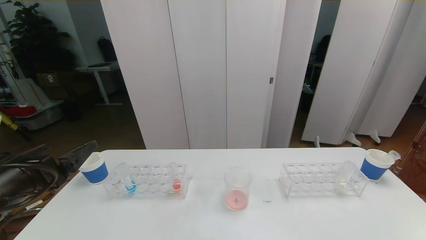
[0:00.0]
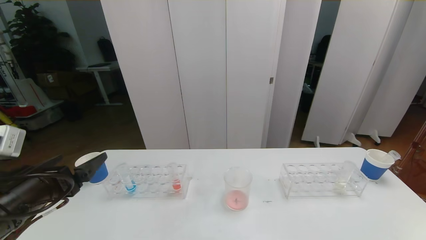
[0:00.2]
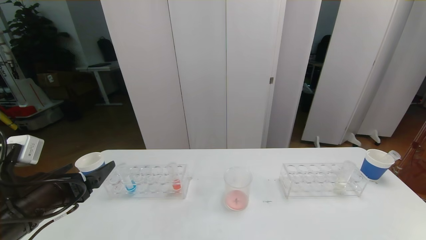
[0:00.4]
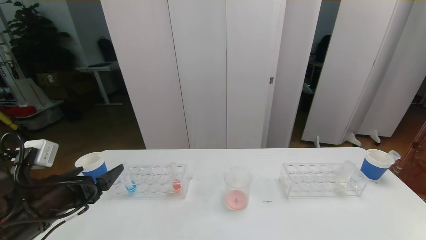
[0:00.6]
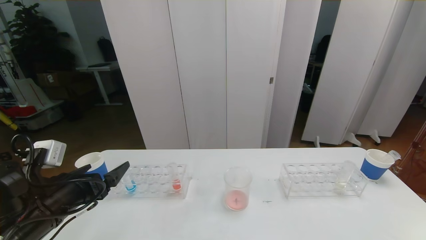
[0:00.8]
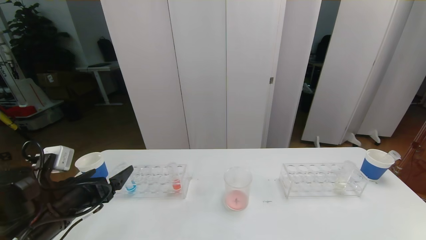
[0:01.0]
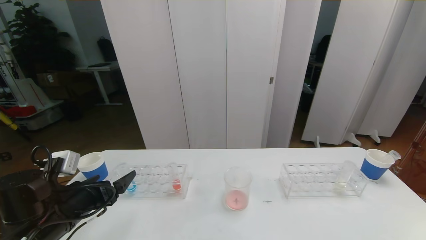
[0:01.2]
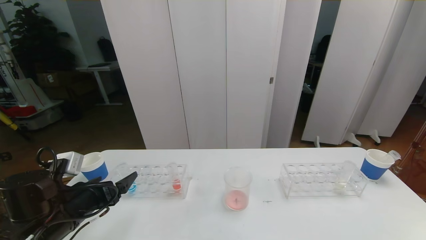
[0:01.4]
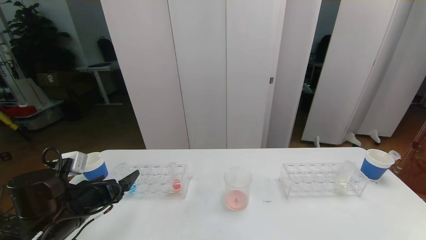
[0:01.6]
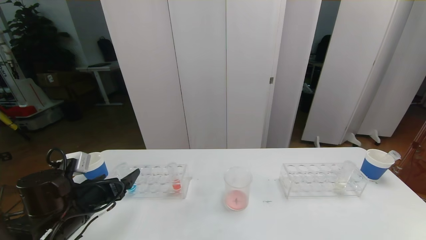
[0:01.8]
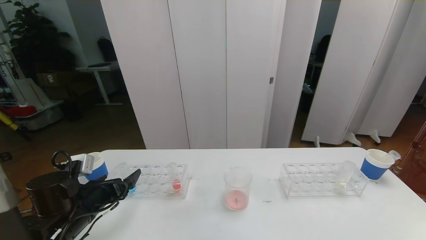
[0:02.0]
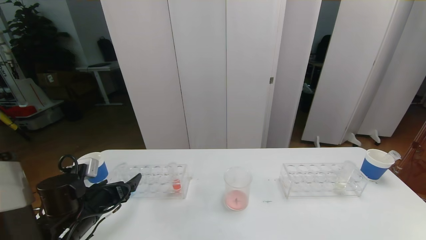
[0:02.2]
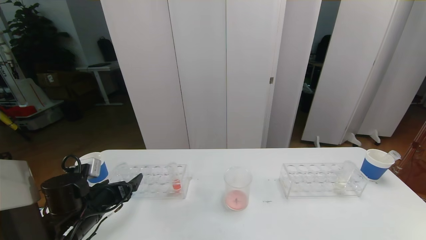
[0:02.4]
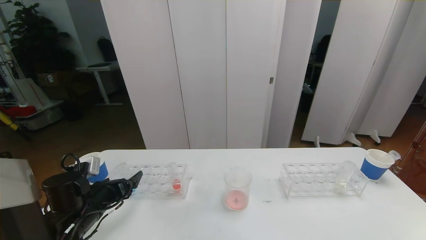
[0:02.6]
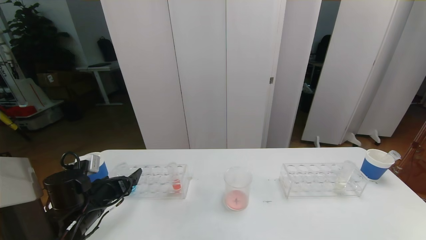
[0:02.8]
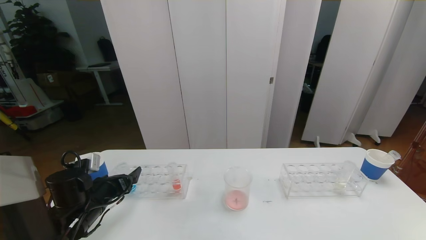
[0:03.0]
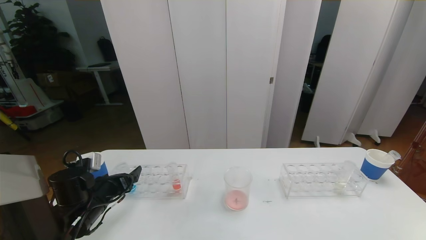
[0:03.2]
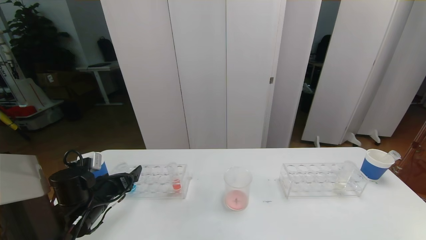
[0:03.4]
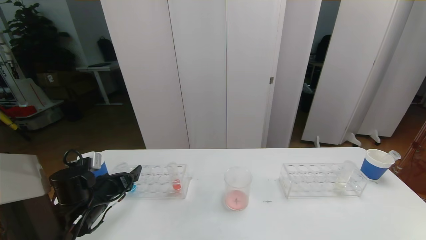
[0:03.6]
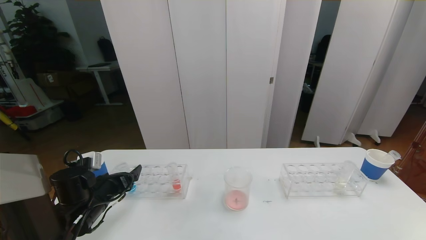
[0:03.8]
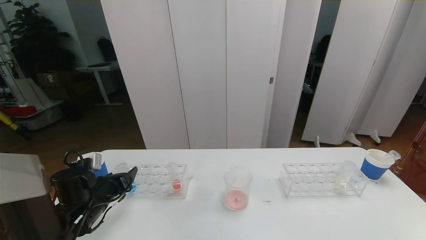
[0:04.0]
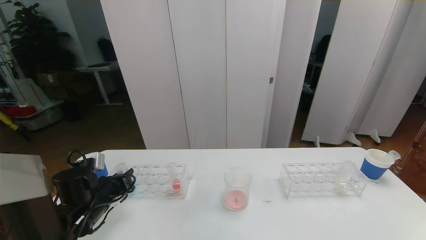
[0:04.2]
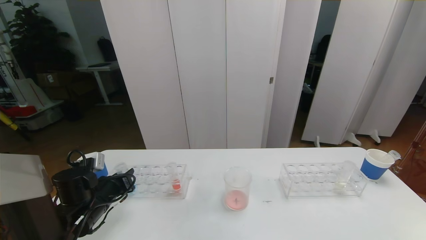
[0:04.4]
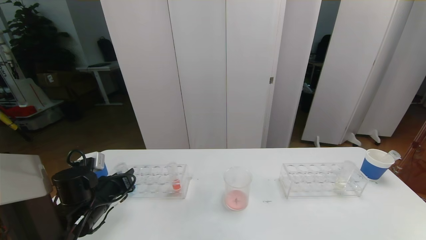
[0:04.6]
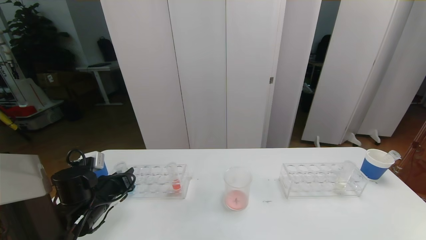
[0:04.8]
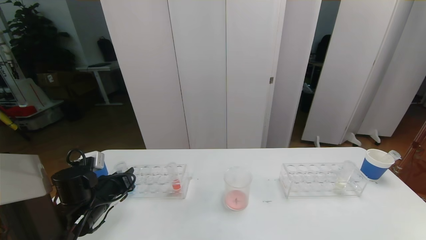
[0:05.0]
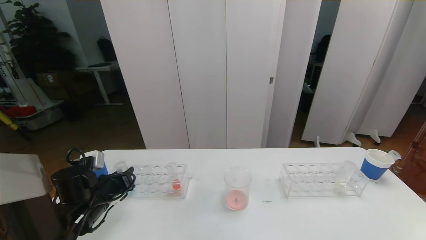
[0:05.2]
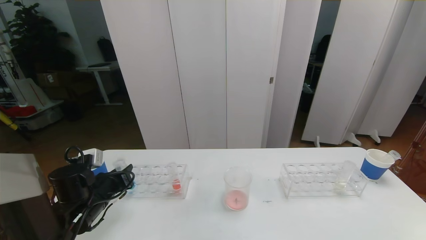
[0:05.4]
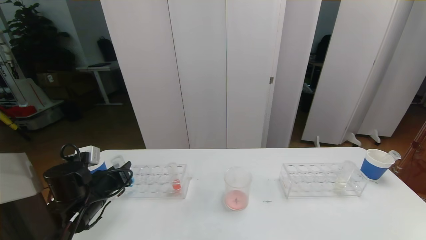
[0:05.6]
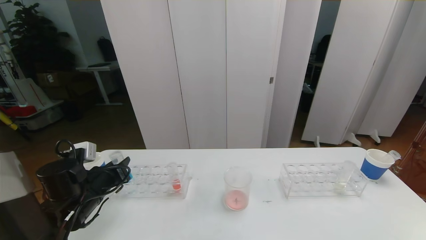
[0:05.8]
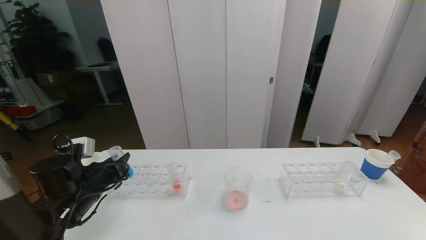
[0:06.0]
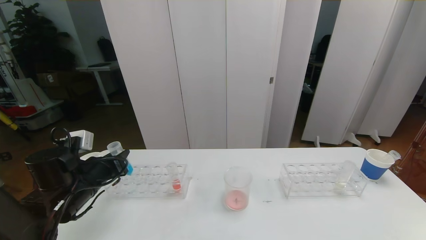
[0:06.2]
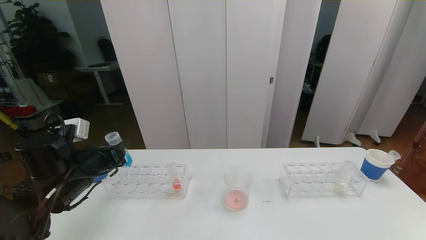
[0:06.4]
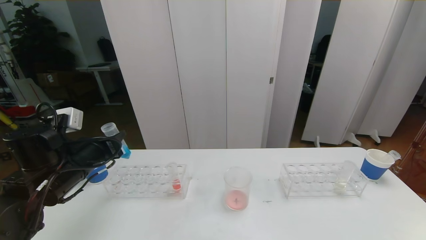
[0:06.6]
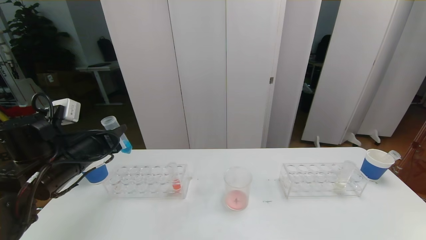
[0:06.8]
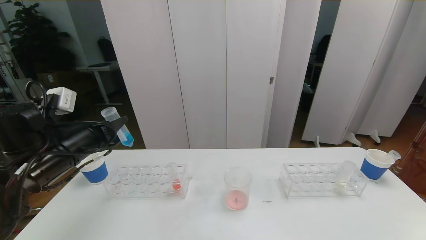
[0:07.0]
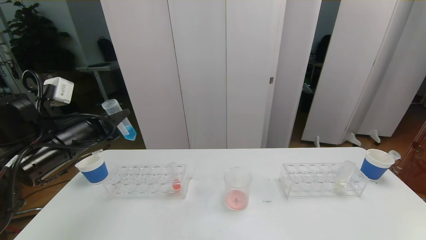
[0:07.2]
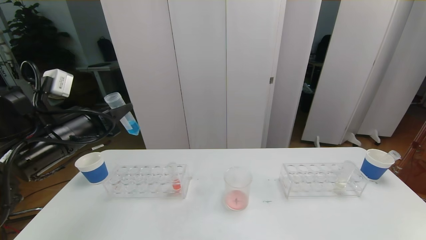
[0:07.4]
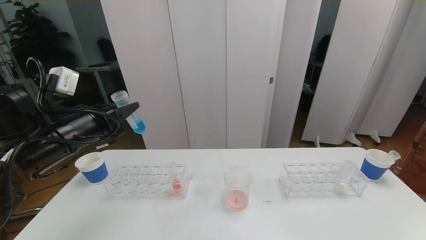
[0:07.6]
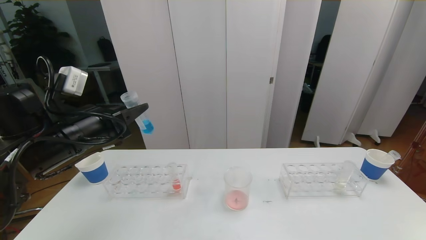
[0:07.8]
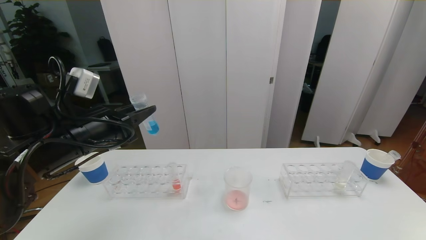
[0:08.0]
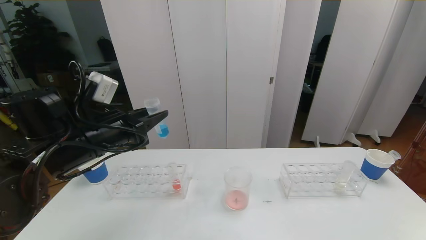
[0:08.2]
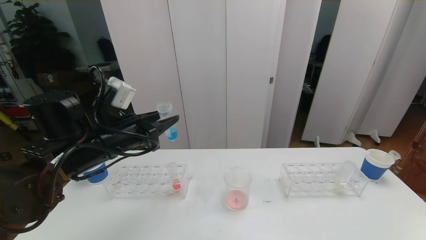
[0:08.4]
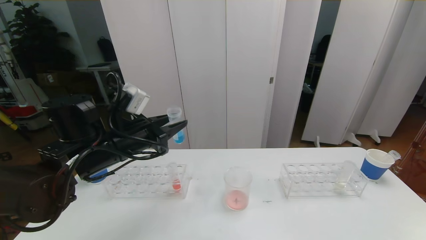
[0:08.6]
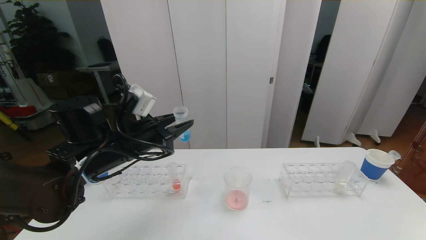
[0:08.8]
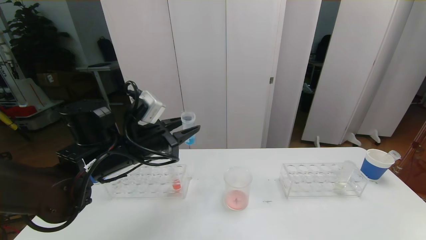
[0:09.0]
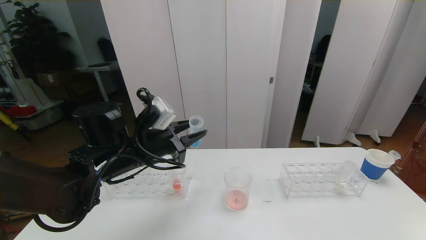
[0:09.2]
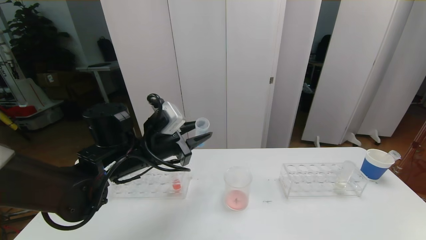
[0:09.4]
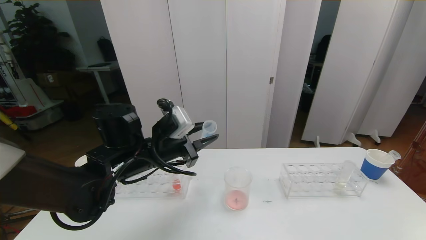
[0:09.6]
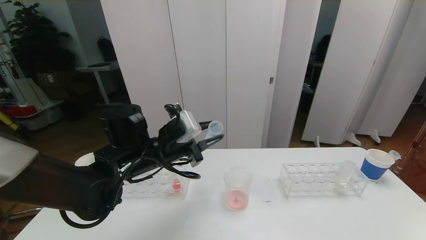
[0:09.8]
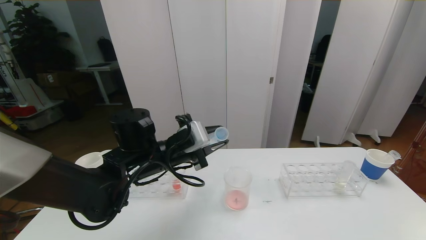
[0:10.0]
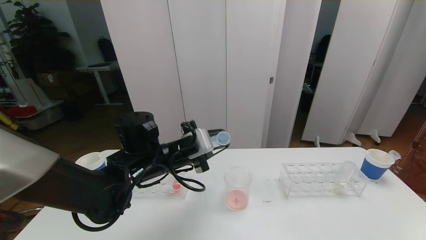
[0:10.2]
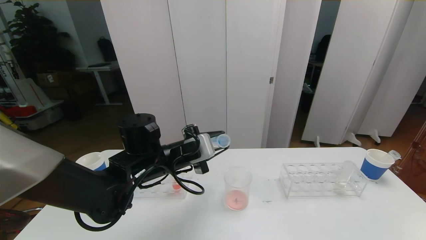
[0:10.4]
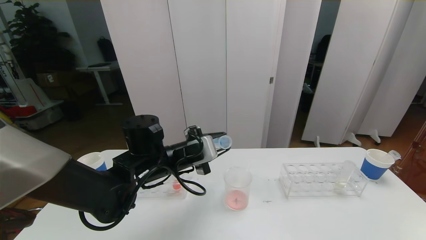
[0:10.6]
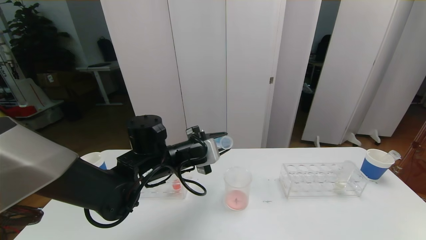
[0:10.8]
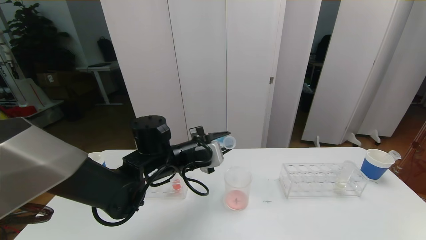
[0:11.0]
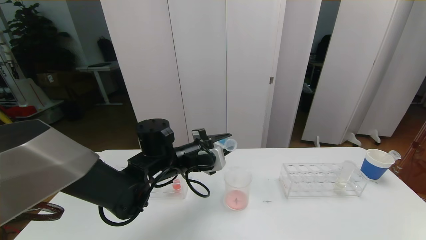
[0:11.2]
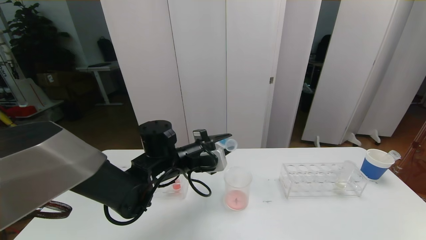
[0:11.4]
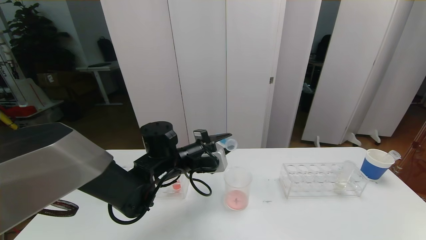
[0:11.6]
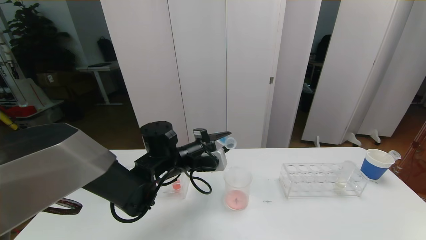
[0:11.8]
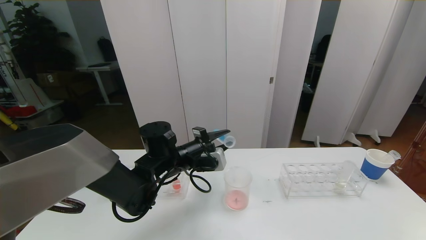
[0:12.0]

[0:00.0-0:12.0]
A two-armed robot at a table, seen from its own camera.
Task of the whole recording: pick up the test tube with red pigment the test tube with blue pigment and the test tube with white pigment by grippers and pour them into the beaker.
0:00.0 to 0:01.6: The left gripper heads downward and forward, covering about 15 cm.
0:01.6 to 0:03.0: The left gripper ends up roughly 5 cm from where it was.
0:03.0 to 0:04.4: The left gripper closes up.
0:04.4 to 0:06.0: The grippers stay close to where they were, moving slightly.
0:06.0 to 0:07.6: The left gripper shifts roughly 15 cm upward.
0:07.6 to 0:09.0: The left gripper goes roughly 10 cm to the right.
0:09.0 to 0:10.4: The left gripper heads to the right, covering approximately 5 cm.
0:10.4 to 0:12.0: The left gripper moves some 5 cm.

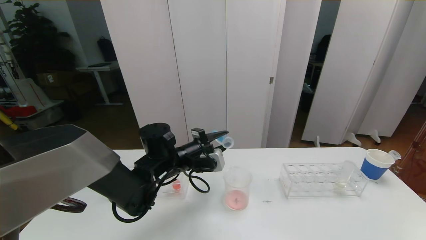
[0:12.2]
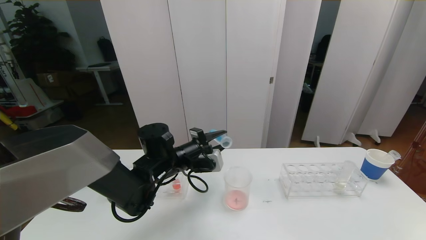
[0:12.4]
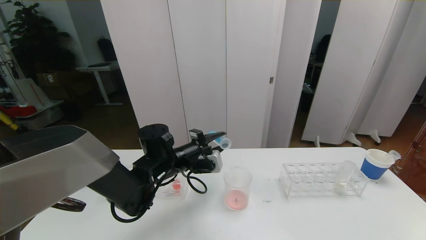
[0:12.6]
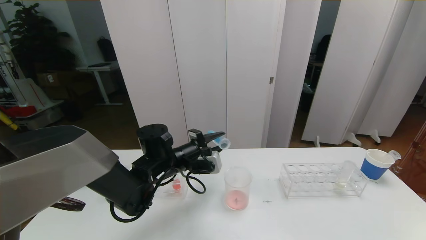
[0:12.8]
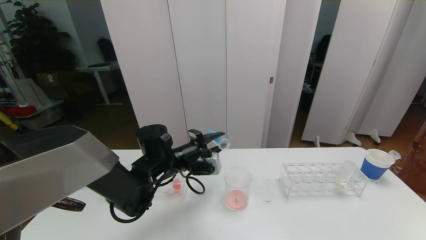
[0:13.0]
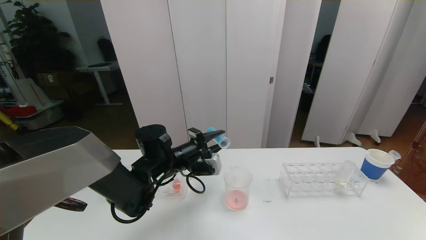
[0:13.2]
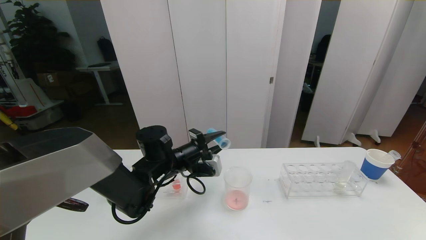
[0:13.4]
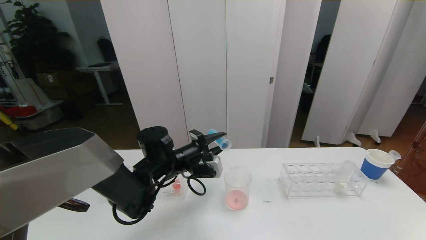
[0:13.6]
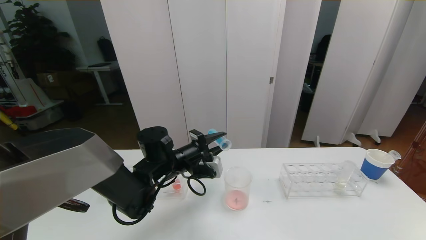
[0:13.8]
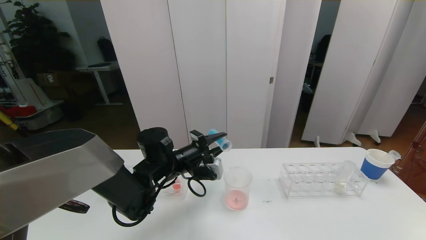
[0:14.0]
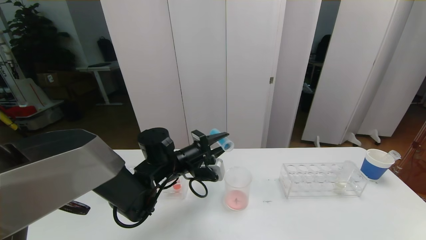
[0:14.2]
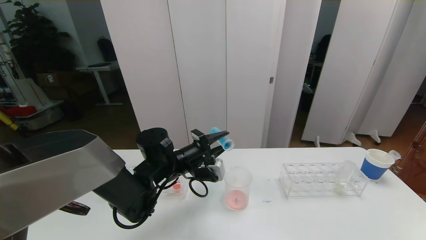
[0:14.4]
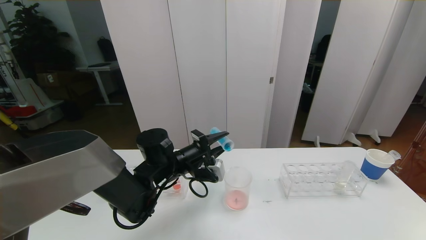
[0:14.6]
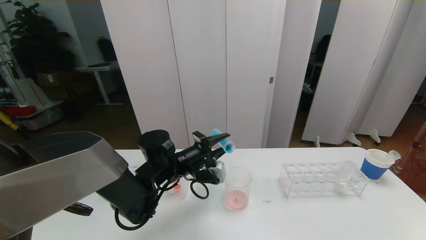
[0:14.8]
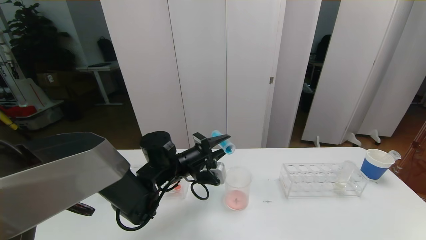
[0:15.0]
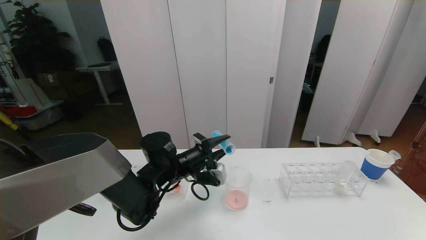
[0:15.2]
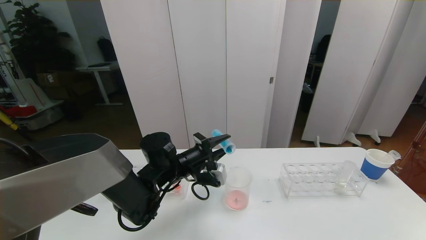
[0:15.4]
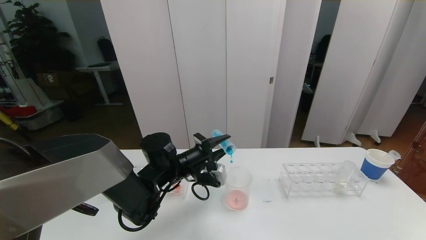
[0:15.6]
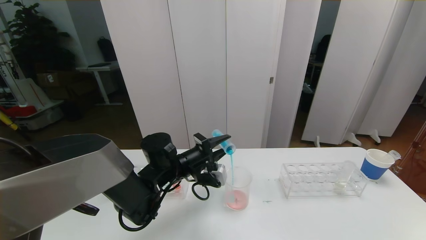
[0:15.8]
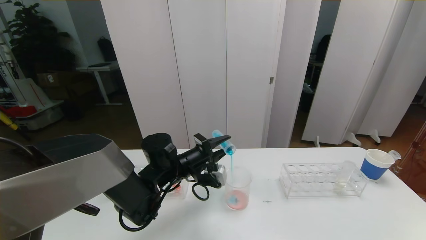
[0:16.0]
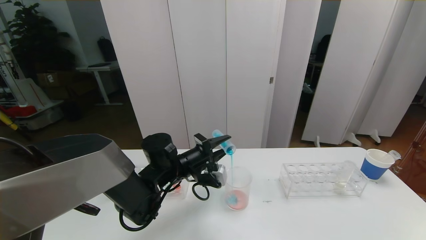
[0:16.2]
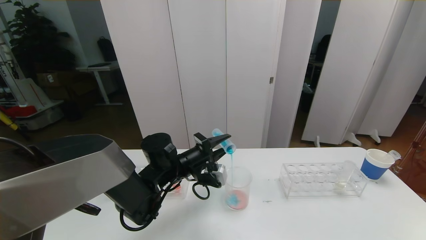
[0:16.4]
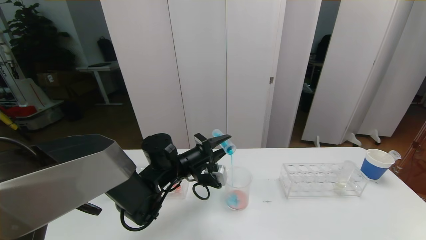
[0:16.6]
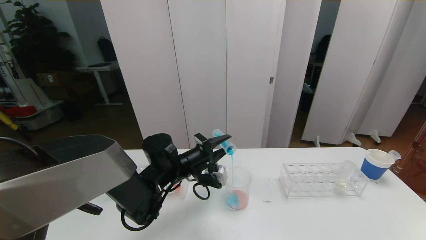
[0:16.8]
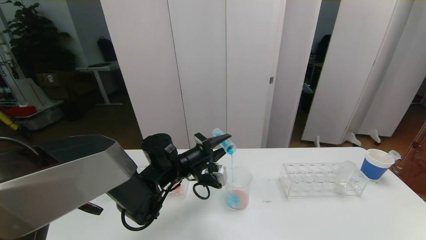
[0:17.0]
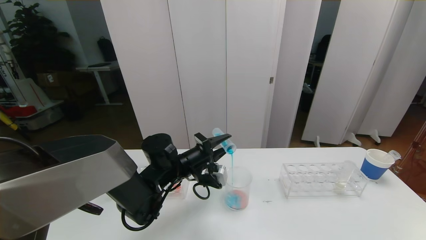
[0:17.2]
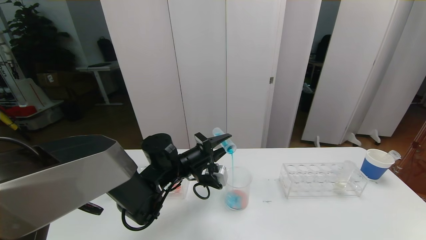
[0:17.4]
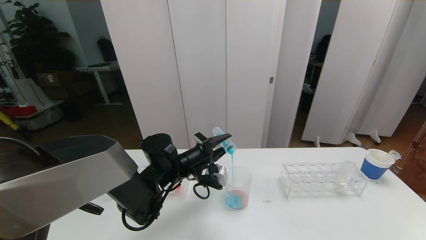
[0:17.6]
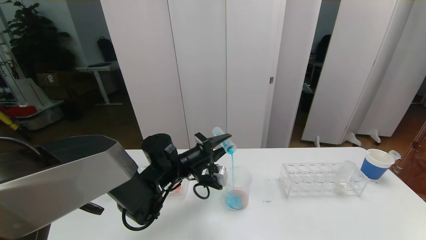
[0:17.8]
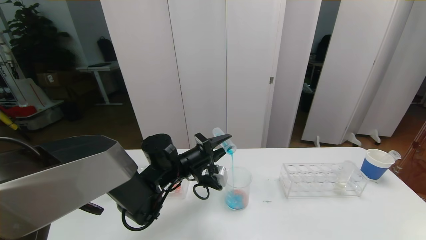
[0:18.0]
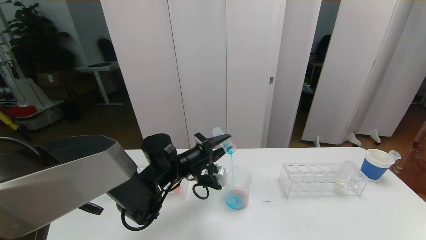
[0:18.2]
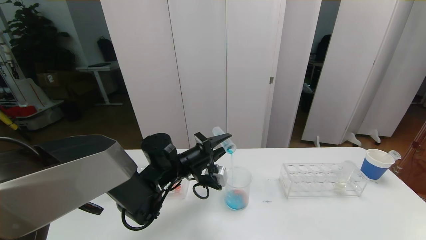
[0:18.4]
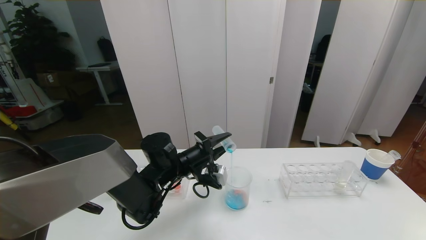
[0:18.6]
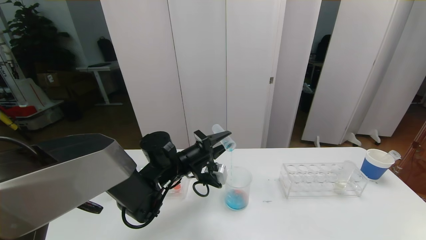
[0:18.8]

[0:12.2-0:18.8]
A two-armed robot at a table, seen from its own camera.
Task of the whole recording: pick up the test tube with red pigment the test tube with blue pigment and the test tube with white pigment by grippers and pour them into the beaker.
0:12.2 to 0:13.8: The grippers move only a little.
0:13.8 to 0:15.4: Both grippers stay put.
0:15.4 to 0:17.2: Neither gripper changes place.
0:17.2 to 0:18.8: Neither gripper changes place.
